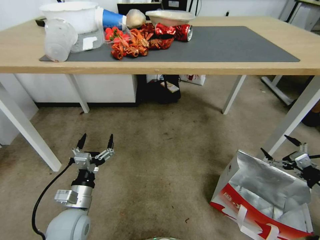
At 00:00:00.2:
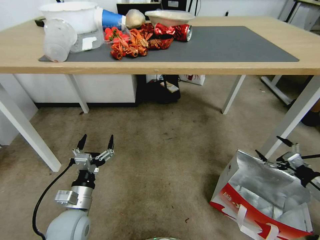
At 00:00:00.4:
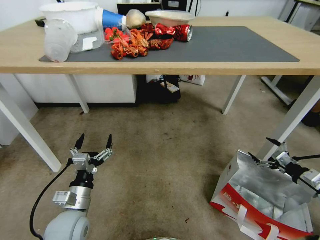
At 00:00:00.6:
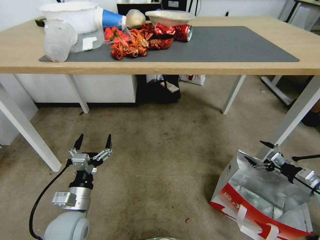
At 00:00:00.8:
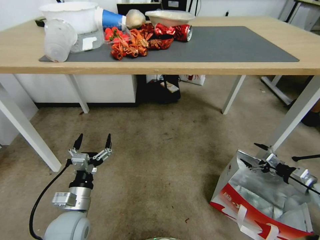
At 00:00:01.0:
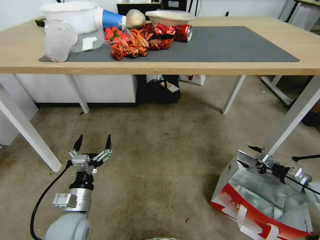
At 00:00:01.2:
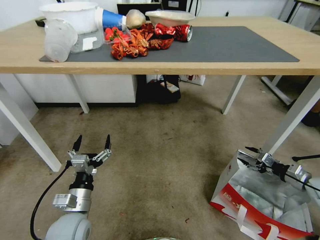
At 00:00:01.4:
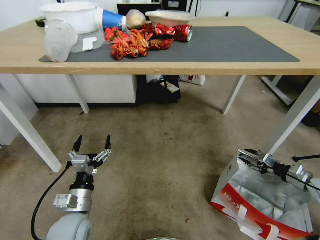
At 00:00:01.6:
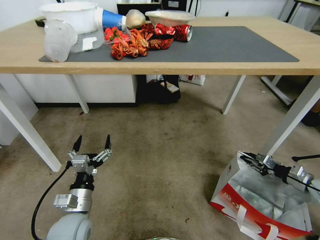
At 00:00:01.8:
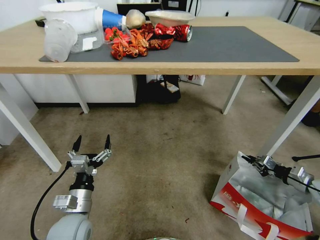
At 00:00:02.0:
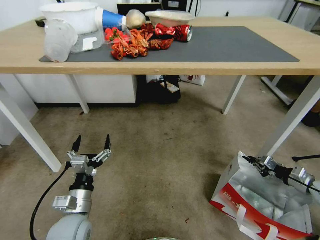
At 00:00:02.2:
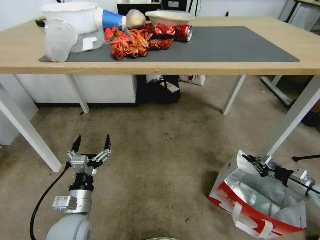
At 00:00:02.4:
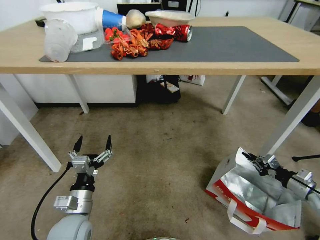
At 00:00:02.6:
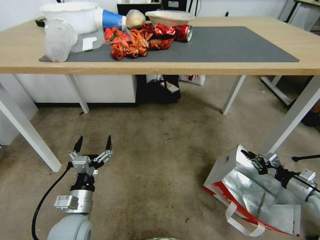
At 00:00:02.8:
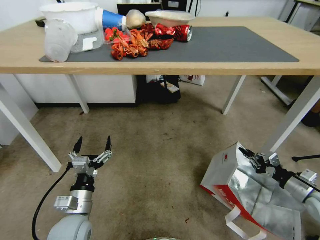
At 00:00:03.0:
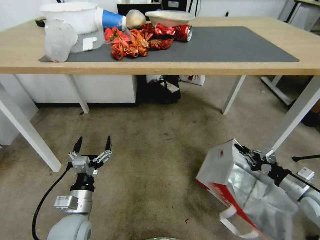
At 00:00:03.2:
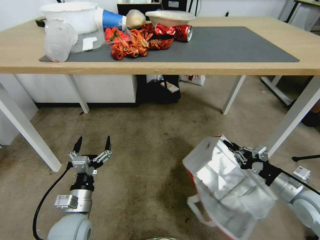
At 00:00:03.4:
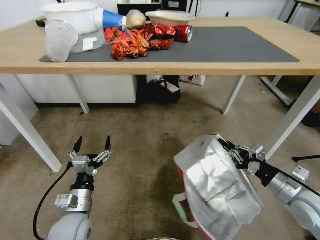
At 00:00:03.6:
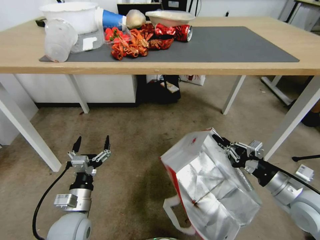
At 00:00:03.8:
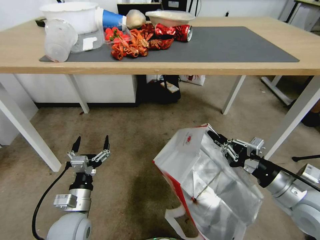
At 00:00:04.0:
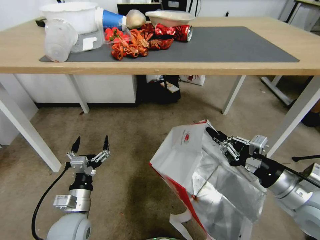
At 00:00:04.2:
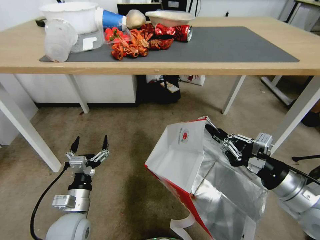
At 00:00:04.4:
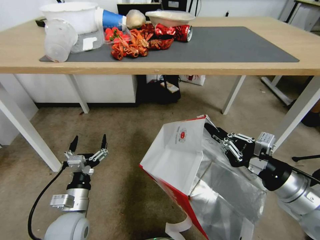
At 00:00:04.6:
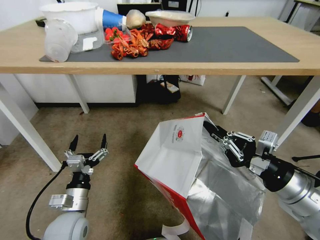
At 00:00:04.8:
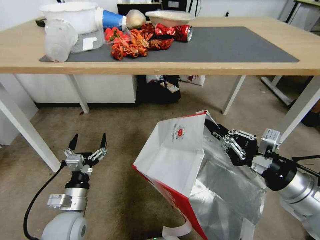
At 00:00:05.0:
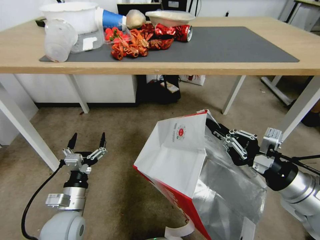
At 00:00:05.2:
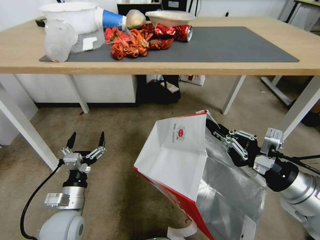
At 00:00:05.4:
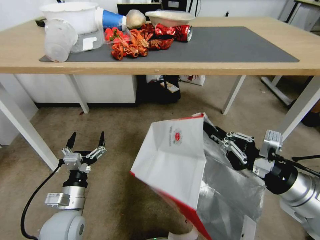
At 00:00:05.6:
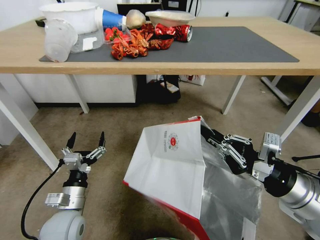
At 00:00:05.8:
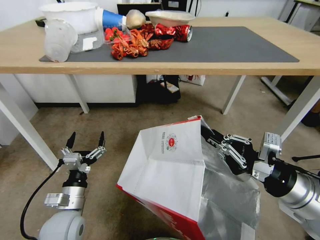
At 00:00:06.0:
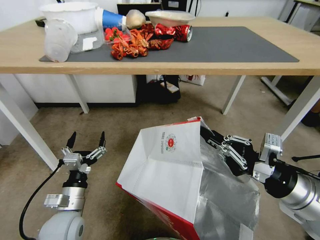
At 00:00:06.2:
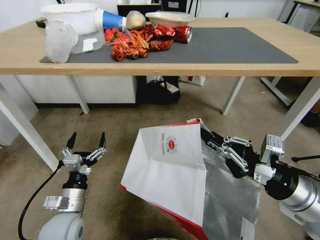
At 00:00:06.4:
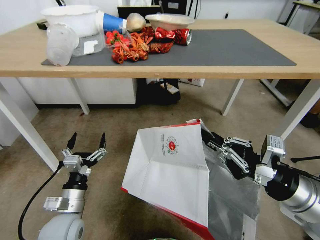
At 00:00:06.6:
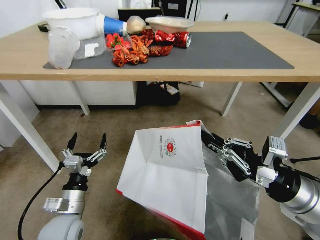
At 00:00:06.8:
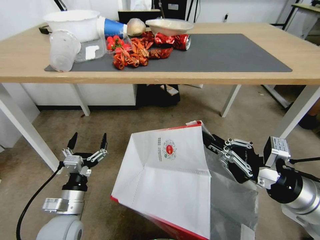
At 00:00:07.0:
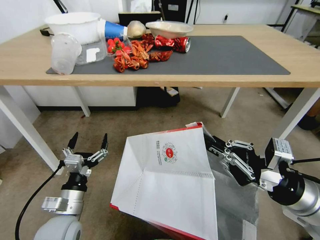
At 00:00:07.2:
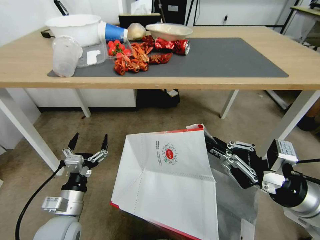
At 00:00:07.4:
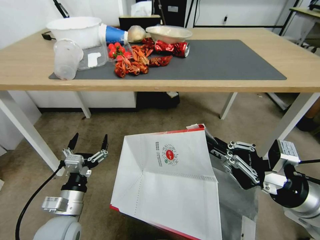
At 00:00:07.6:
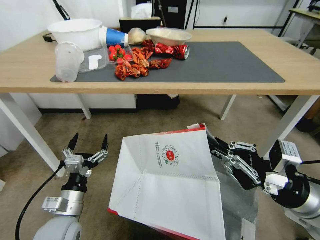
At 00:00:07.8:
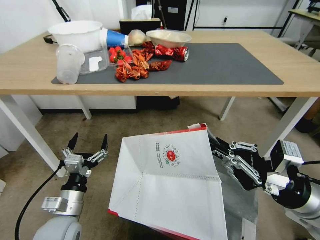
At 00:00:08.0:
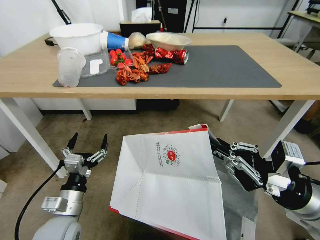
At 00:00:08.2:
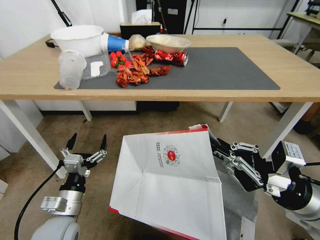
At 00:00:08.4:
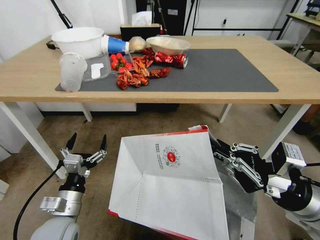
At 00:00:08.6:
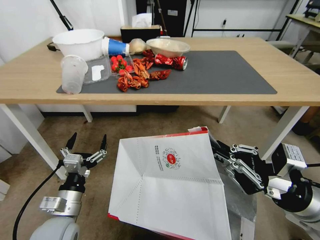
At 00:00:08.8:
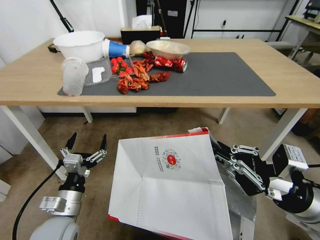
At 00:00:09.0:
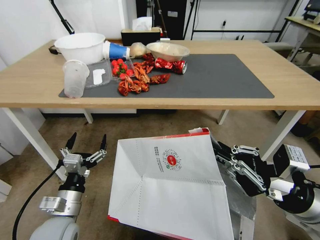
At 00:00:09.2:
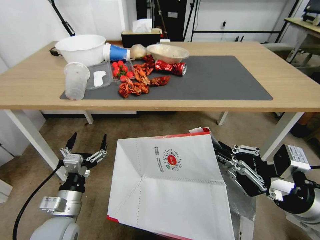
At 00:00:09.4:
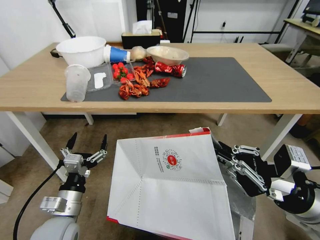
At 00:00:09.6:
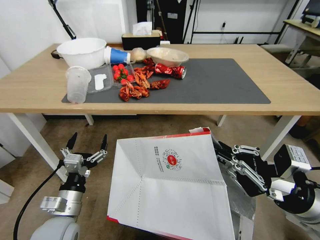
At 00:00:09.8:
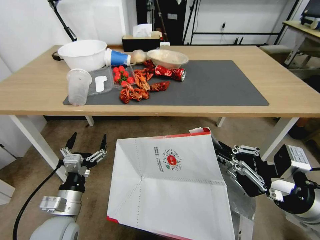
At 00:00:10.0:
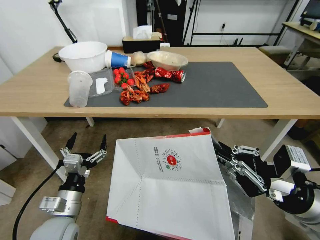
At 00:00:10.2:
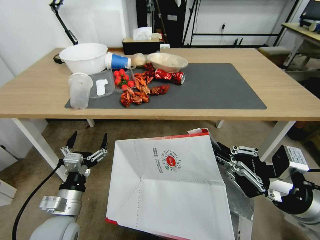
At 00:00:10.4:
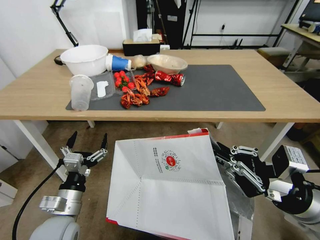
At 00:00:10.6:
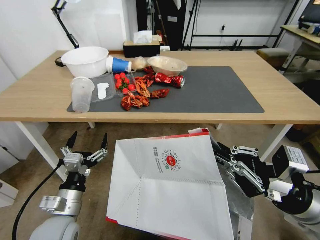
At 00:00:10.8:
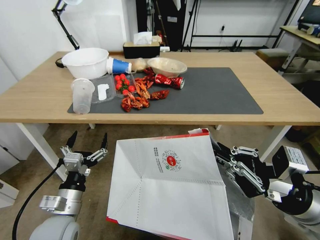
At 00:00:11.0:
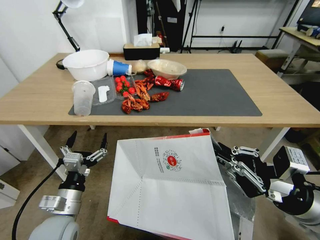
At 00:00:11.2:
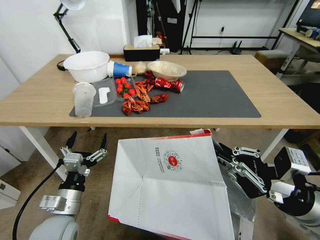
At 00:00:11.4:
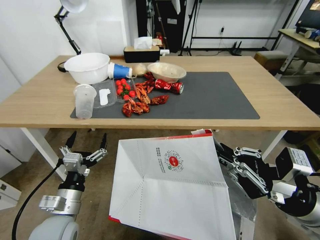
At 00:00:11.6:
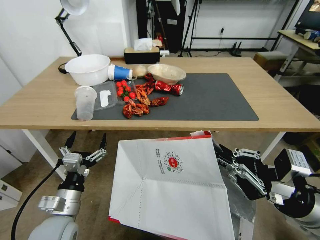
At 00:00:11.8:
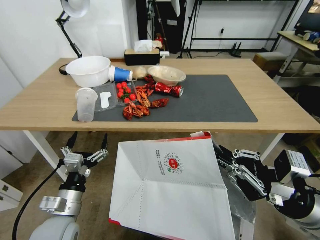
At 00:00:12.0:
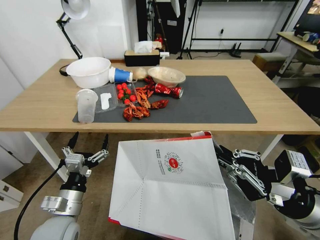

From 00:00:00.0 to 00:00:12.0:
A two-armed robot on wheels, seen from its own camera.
Task of the whole recording: Pick up the food delivery bag from the floor and place it on the table.
From 00:00:00.0 to 00:00:01.6: The right gripper goes about 10 cm forward, and closes.
From 00:00:01.6 to 00:00:03.0: The right gripper shifts roughly 10 cm to the left and backward.
From 00:00:03.0 to 00:00:04.4: The right gripper goes about 20 cm upward, to the left and backward.
From 00:00:04.4 to 00:00:06.0: There are only small adjustments of the grippers.

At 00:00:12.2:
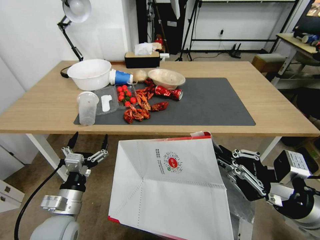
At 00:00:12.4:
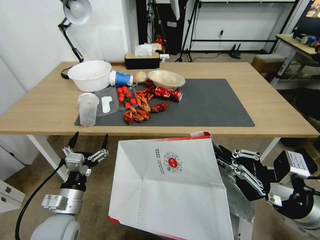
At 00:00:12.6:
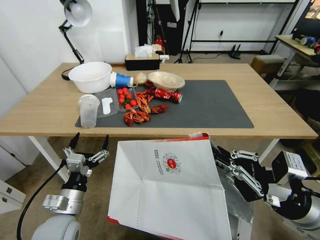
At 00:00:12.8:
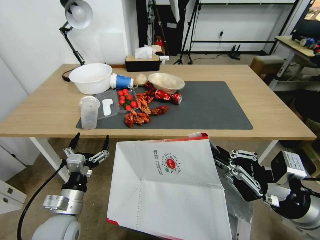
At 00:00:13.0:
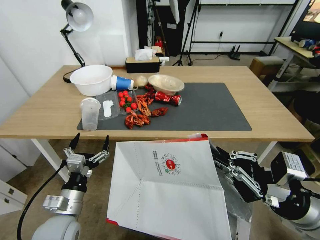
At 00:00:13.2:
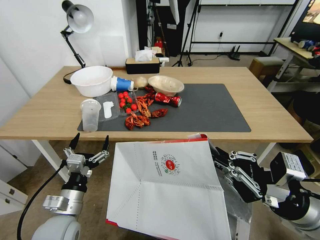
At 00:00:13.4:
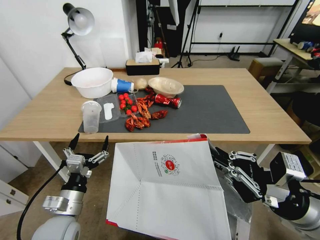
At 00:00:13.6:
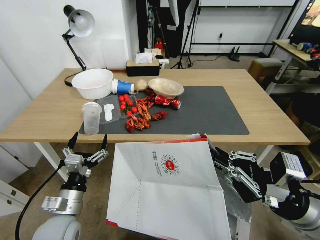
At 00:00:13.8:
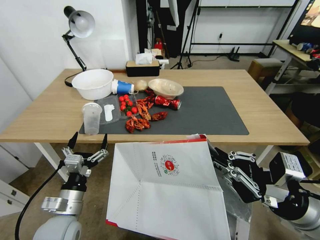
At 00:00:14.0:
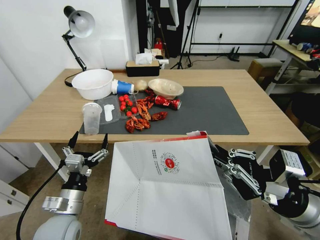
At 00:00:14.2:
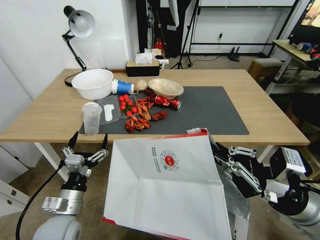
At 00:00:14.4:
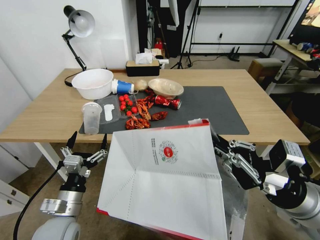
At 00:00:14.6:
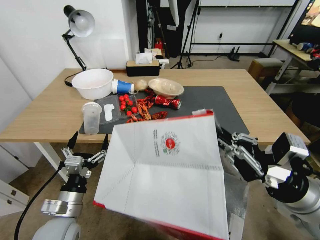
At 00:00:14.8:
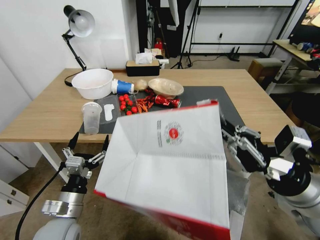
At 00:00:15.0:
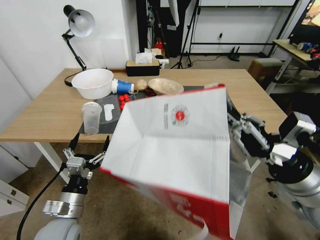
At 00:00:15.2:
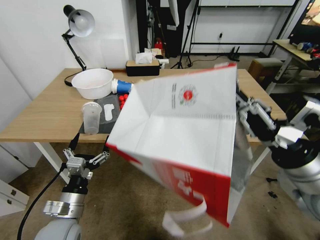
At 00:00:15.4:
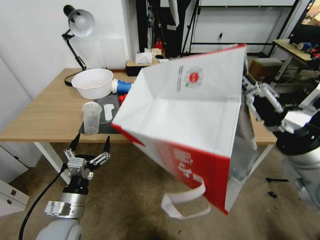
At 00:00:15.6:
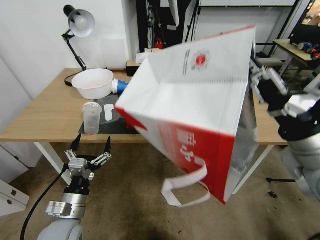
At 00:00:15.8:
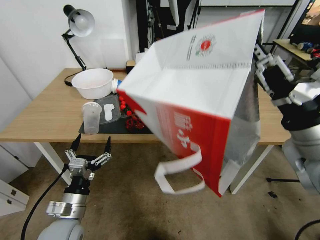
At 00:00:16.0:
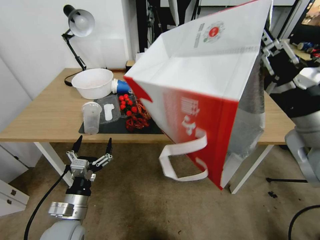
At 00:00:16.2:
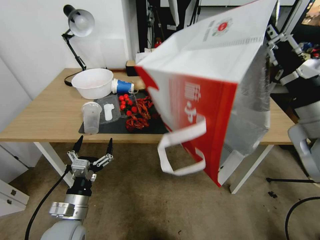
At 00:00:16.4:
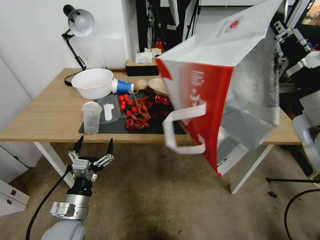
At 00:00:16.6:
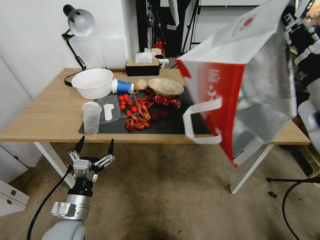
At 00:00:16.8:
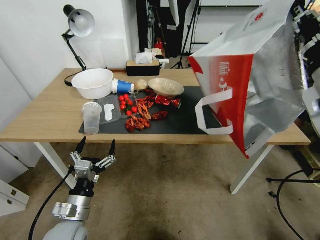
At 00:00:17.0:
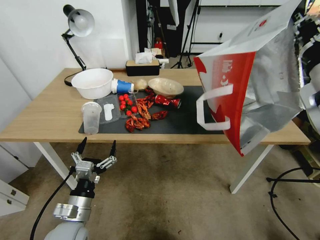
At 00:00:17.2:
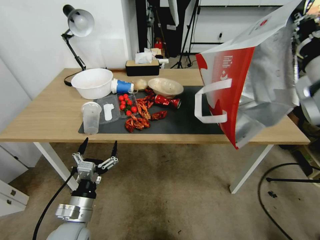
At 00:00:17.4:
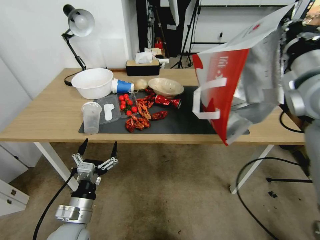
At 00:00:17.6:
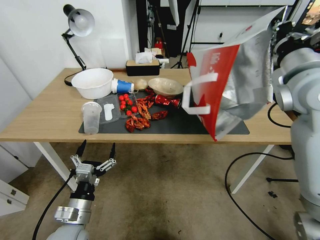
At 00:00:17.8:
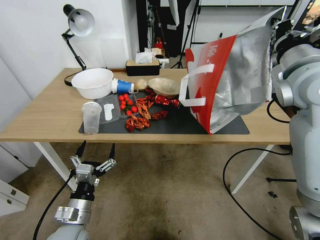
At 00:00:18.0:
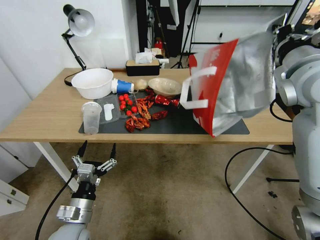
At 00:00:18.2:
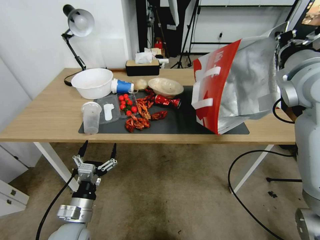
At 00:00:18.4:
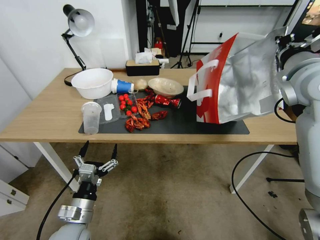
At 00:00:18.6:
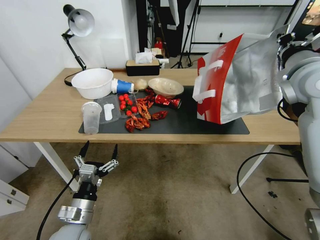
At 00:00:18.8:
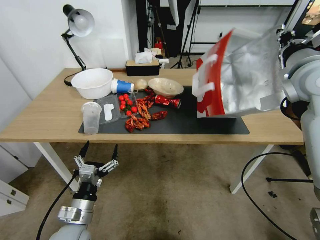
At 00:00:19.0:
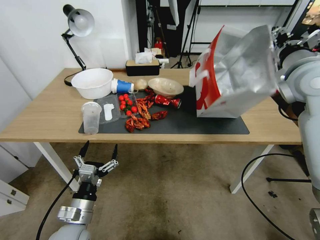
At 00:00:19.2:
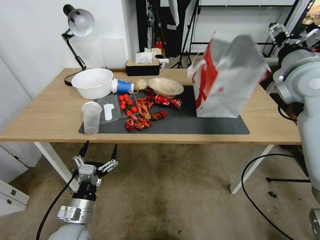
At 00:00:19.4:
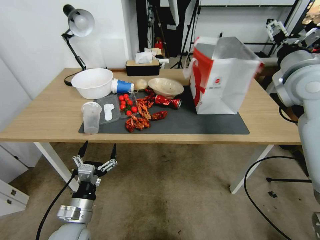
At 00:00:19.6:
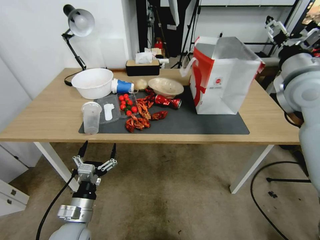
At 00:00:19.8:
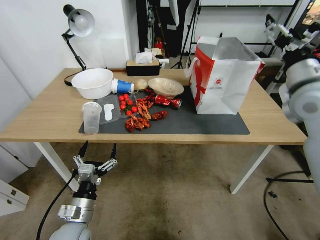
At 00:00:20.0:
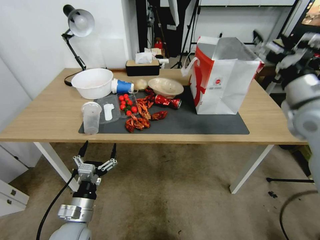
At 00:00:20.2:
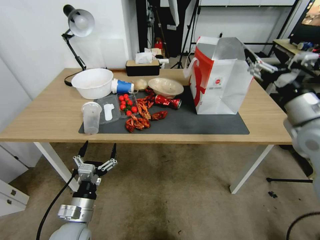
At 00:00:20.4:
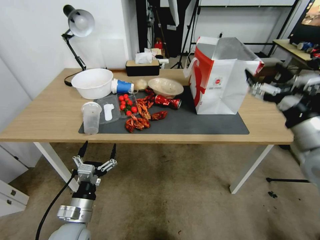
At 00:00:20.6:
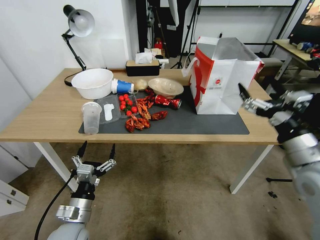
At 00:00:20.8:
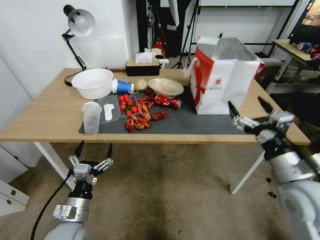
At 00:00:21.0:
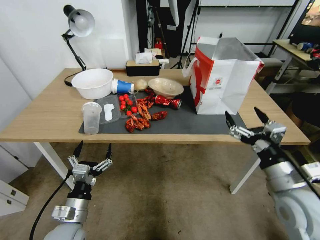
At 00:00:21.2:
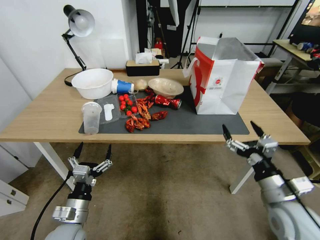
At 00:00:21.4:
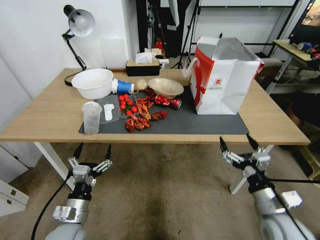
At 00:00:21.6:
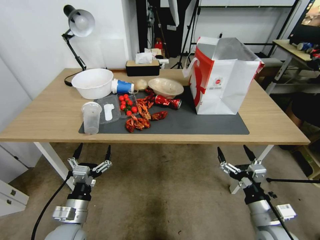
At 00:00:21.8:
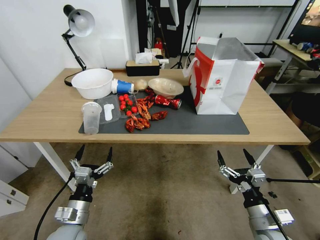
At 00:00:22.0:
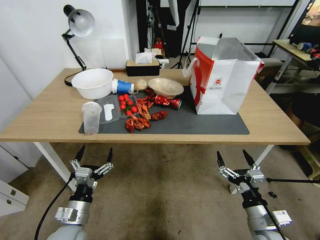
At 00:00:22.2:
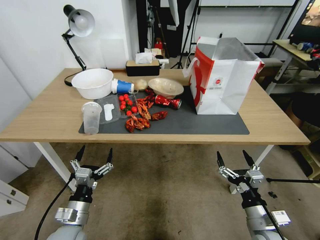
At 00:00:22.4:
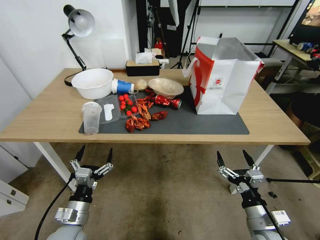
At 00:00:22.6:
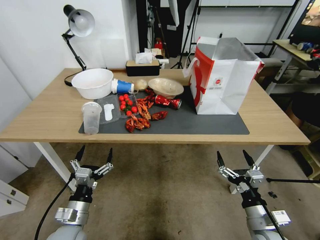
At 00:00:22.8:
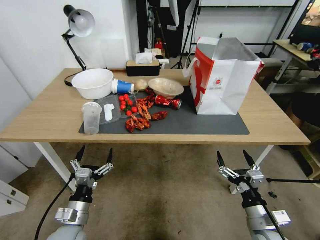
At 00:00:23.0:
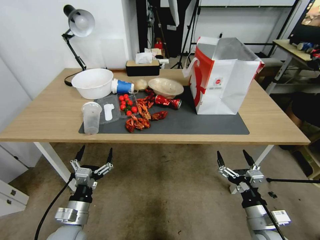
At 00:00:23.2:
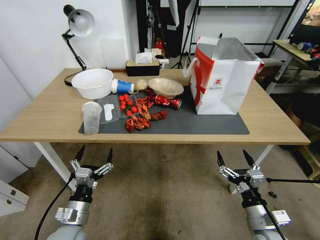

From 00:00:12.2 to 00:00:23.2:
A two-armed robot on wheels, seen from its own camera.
Task of the whole recording: Pick up the food delivery bag from the floor and place it on the table.
From 00:00:13.8 to 00:00:15.4: The right gripper travels upward by some 5 cm.
From 00:00:15.4 to 00:00:17.0: The right gripper shifts approximately 15 cm upward and forward.
From 00:00:17.0 to 00:00:18.4: The right gripper travels forward by some 10 cm.
From 00:00:18.4 to 00:00:20.0: The right gripper is displaced downward by approximately 5 cm, and opens up.
From 00:00:20.0 to 00:00:21.6: The right gripper moves downward and backward, about 30 cm.
From 00:00:21.6 to 00:00:23.2: The grippers stay close to where they were, moving slightly.
